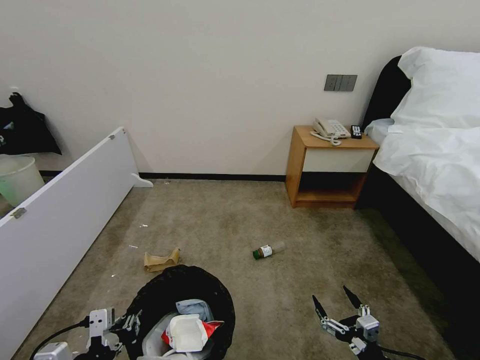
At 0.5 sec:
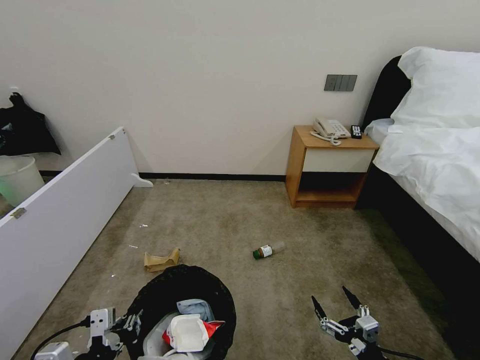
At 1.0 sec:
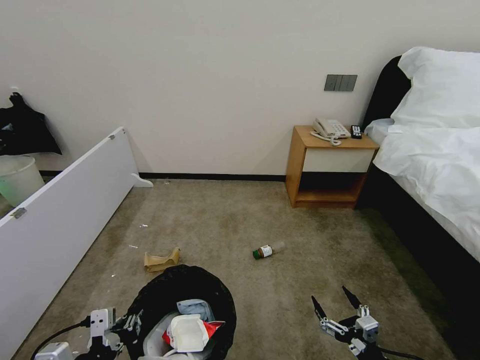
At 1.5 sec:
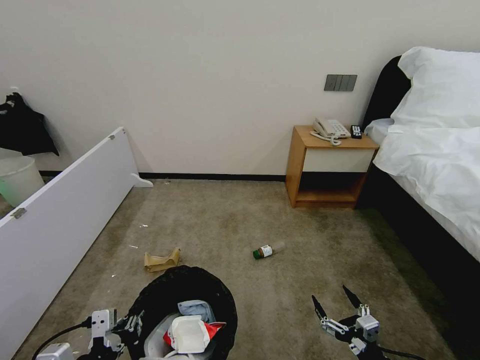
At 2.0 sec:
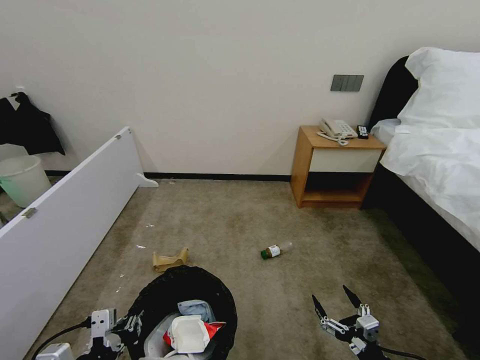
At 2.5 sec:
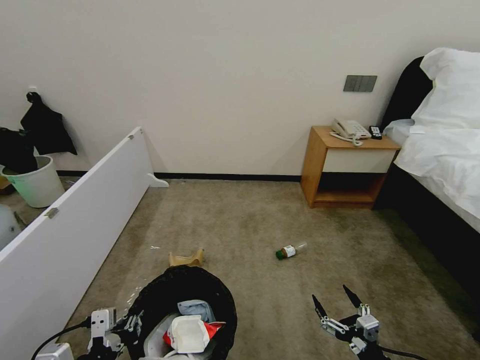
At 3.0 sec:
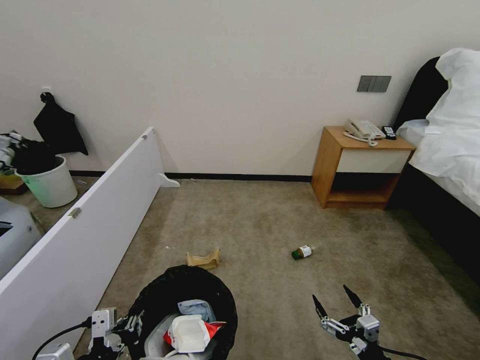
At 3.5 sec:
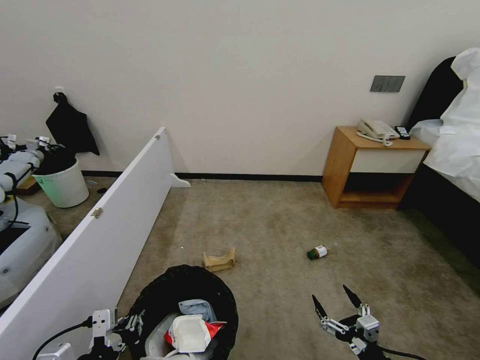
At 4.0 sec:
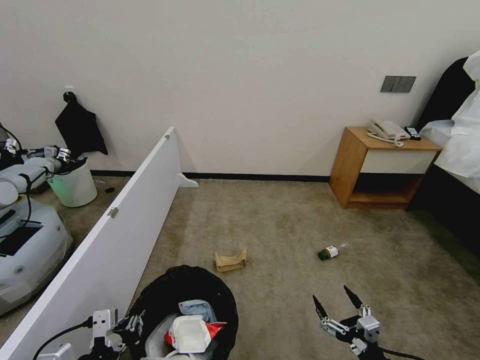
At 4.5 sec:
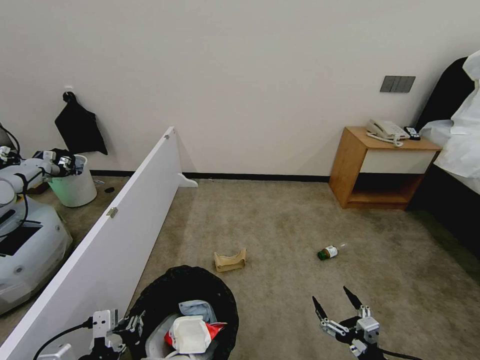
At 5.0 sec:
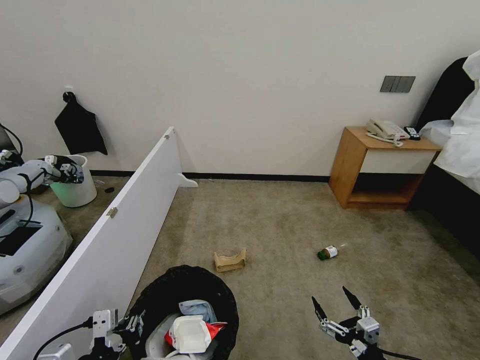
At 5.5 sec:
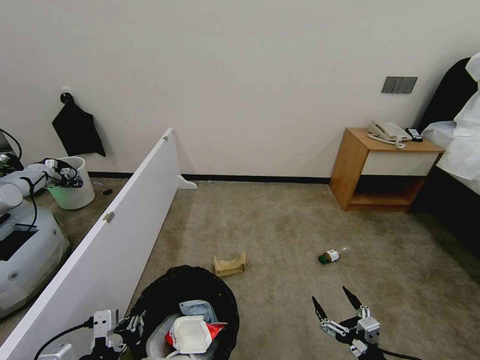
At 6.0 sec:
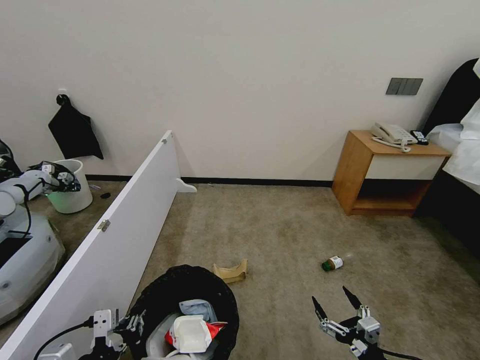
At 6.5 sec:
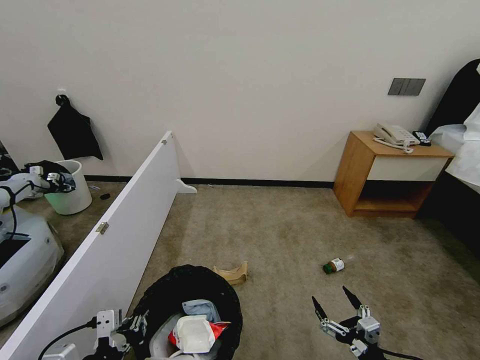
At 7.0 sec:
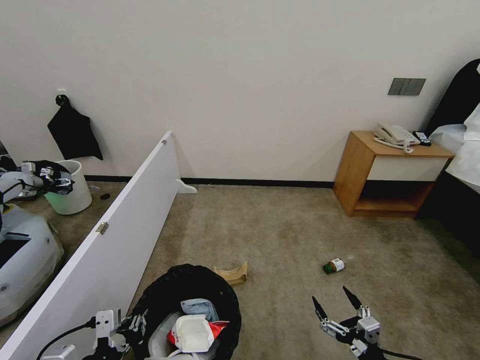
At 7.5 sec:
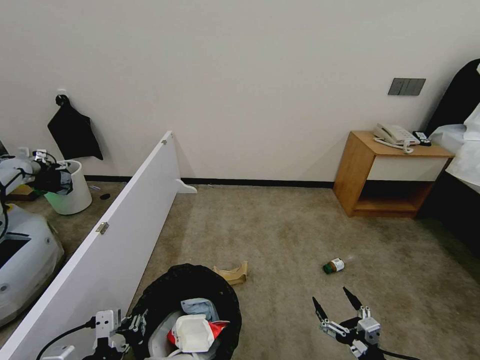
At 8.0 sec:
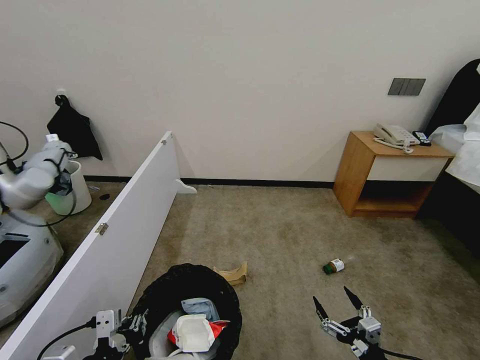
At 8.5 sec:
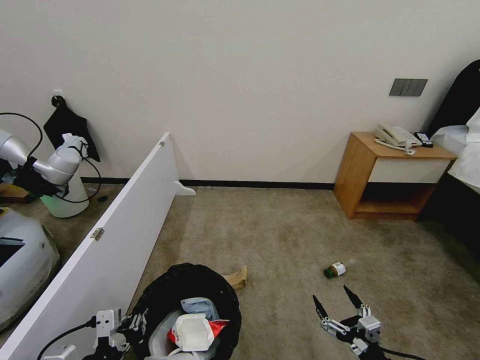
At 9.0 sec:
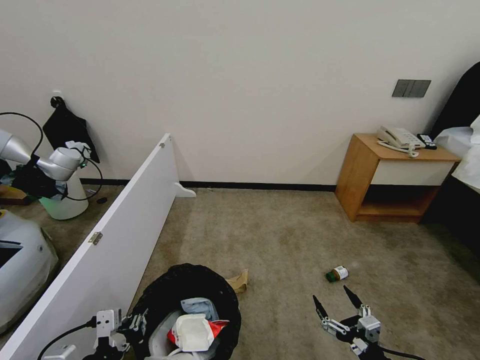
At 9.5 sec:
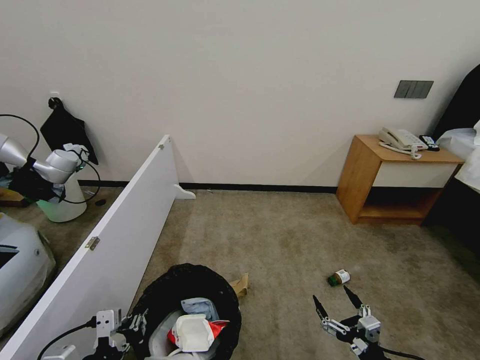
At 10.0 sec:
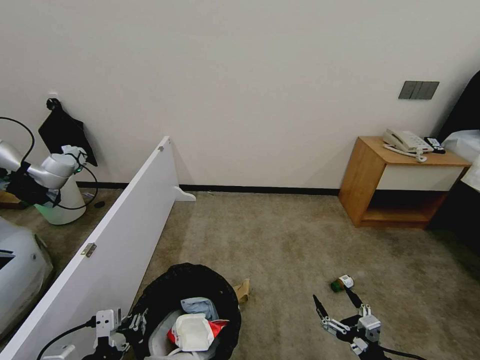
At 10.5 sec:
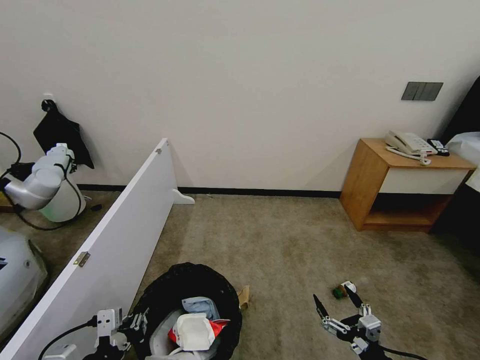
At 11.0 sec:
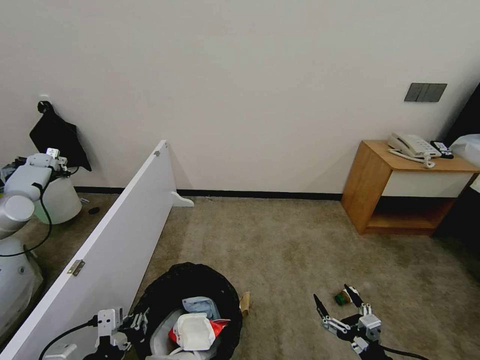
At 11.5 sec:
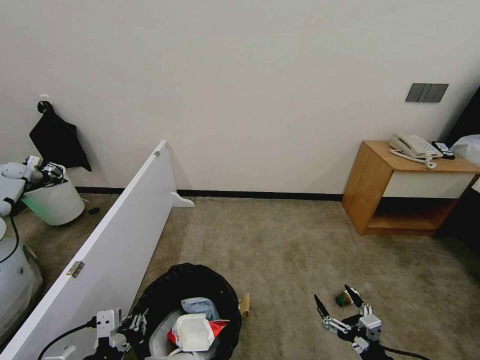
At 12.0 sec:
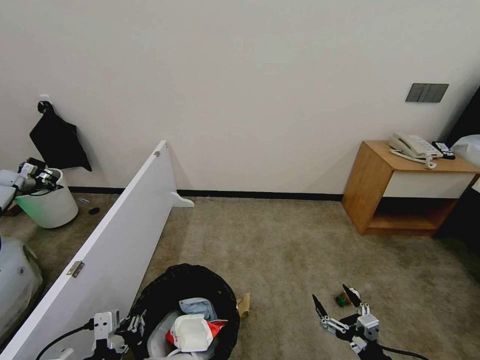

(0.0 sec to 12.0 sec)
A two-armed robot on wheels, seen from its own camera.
Task of the whole recording: Pick up the trash bin, then pick up the garbage from the floor and place it into the trash bin.
0.0 sec - 2.0 sec: Both grippers stay put.
4.0 sec - 12.0 sec: Both grippers stay about where they are.

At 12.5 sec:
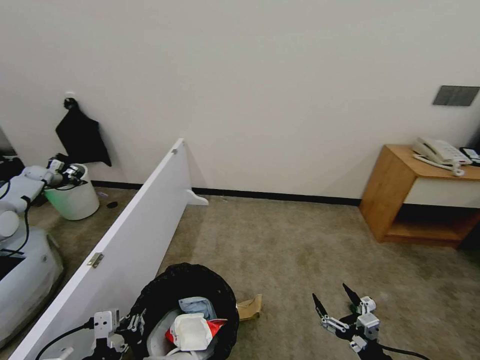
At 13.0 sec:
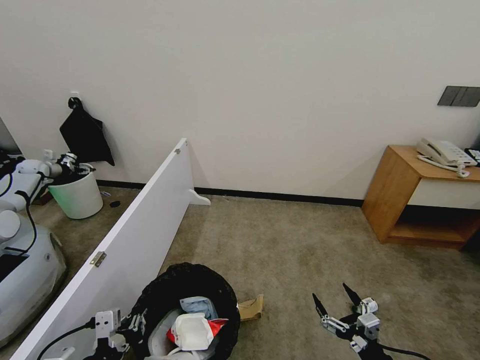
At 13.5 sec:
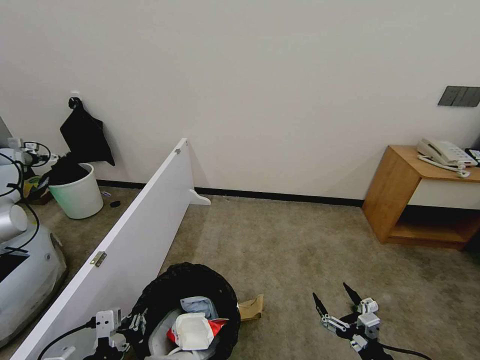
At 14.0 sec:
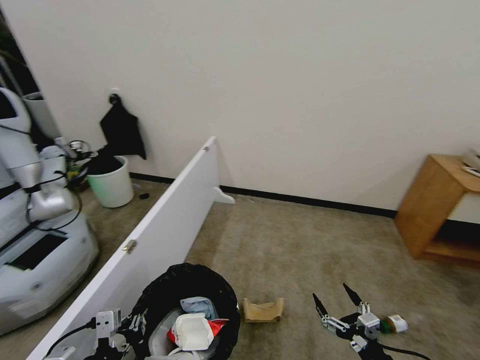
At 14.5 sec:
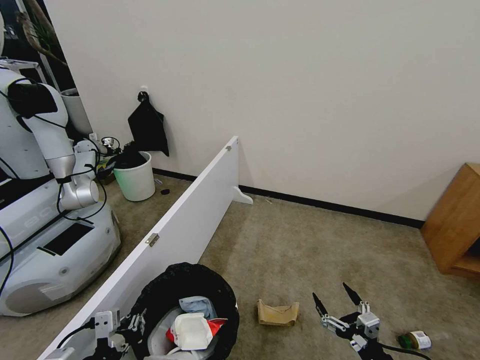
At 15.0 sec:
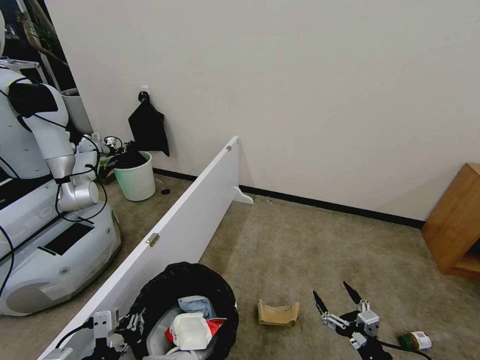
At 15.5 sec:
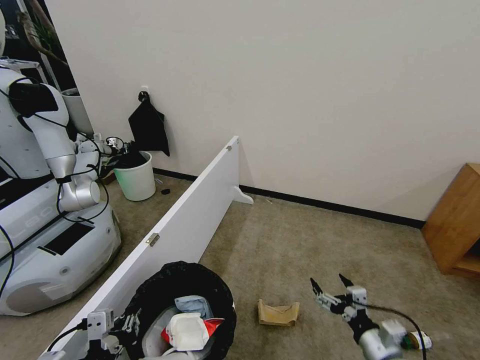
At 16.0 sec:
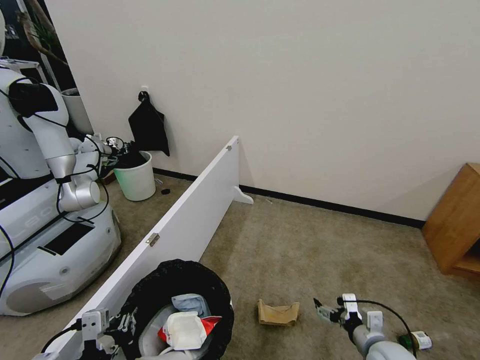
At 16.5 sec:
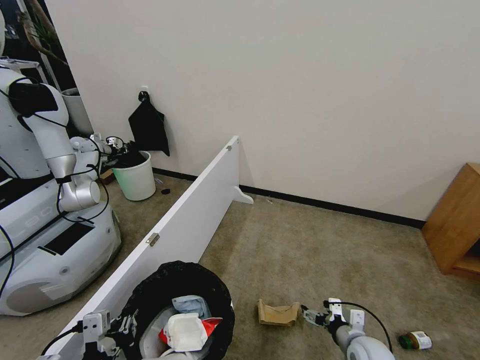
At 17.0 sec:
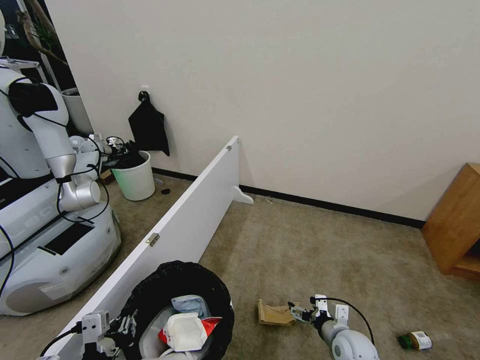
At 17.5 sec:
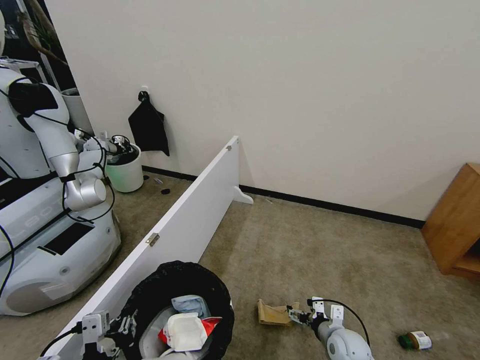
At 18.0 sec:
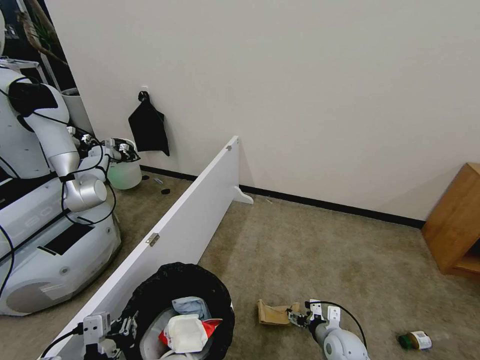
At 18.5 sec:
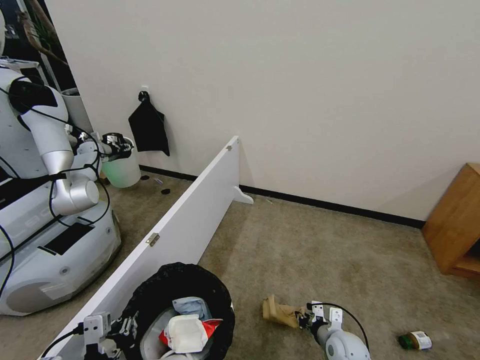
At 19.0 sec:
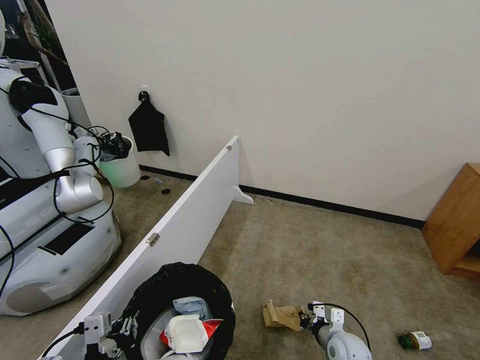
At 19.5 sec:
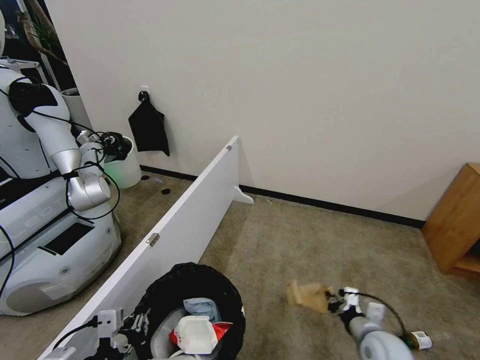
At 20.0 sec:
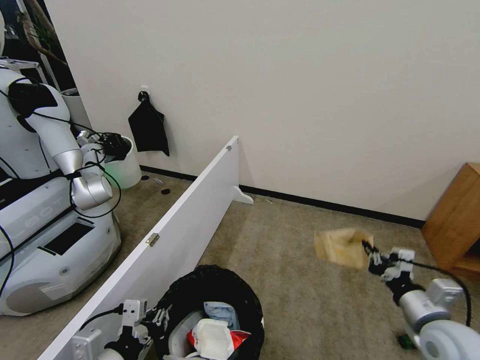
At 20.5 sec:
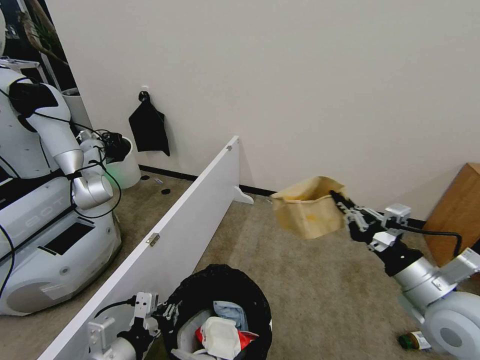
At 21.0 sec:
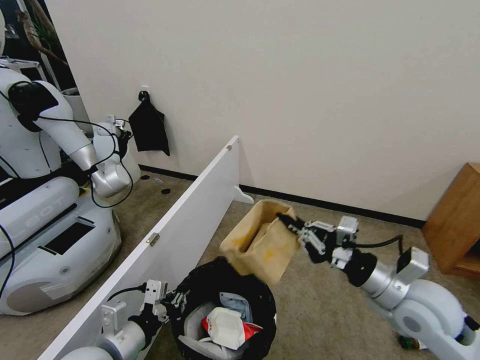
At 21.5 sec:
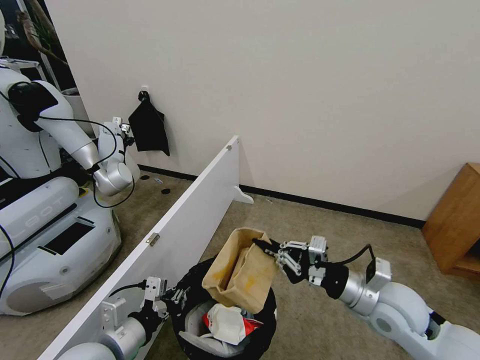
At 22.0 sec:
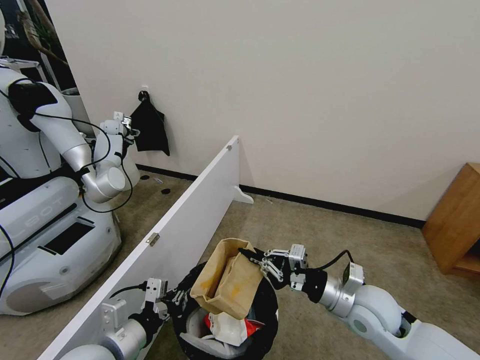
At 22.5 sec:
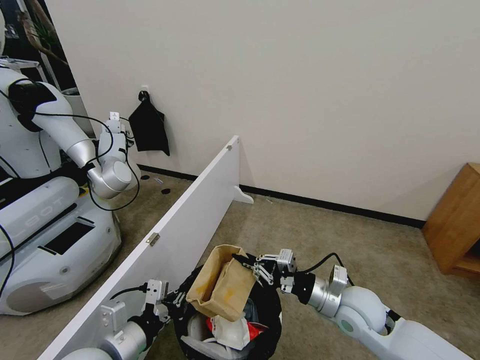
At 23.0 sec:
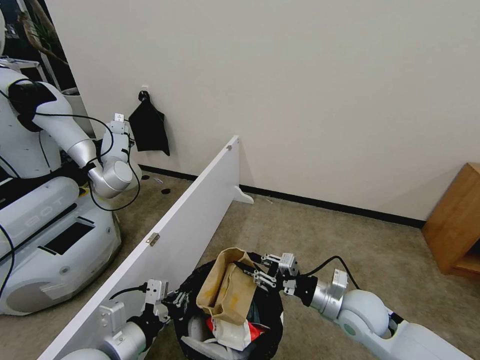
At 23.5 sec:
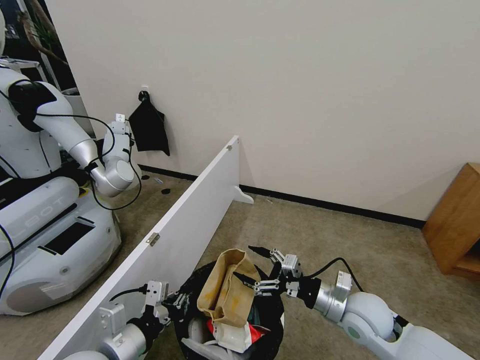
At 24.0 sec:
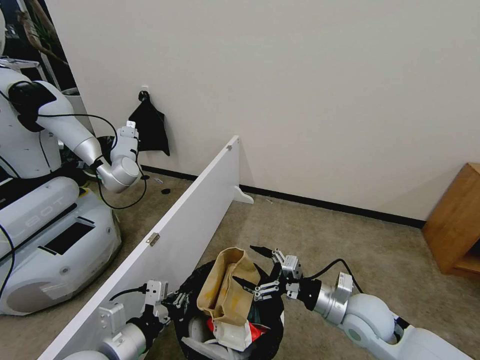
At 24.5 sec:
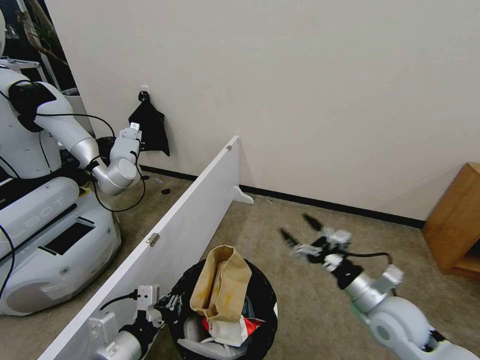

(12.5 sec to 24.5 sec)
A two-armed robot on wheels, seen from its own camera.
Task of the whole recording: Pick up the trash bin, then pick up the garbage from the floor and place it into the trash bin.
14.5 sec - 16.5 sec: The right gripper heads forward, covering some 15 cm.
16.5 sec - 18.5 sec: The right gripper ends up roughly 5 cm from where it was, and closes.
18.5 sec - 20.5 sec: The right gripper moves upward, approximately 30 cm, while the left gripper heads forward, covering approximately 5 cm.
20.5 sec - 22.5 sec: The right gripper travels downward, to the left and forward by about 15 cm.
22.5 sec - 24.5 sec: The right gripper travels to the right by roughly 5 cm, and opens its fingers.

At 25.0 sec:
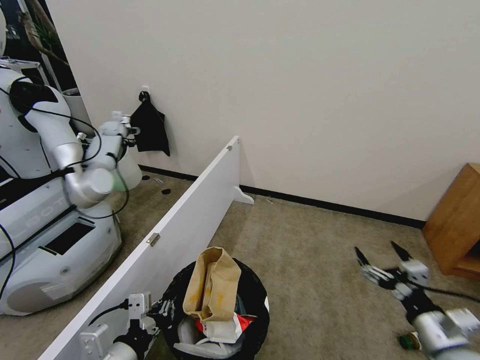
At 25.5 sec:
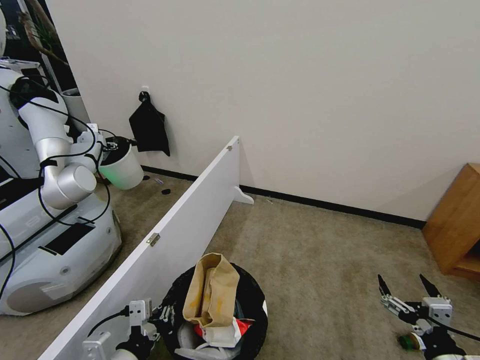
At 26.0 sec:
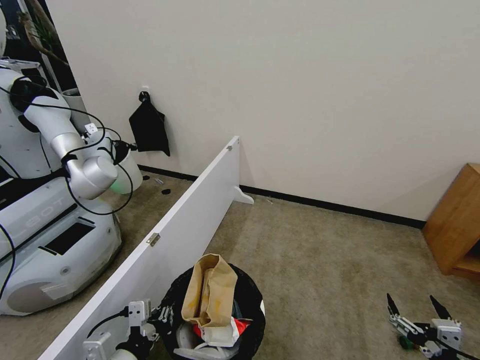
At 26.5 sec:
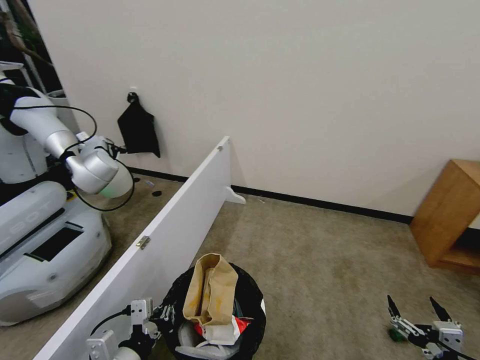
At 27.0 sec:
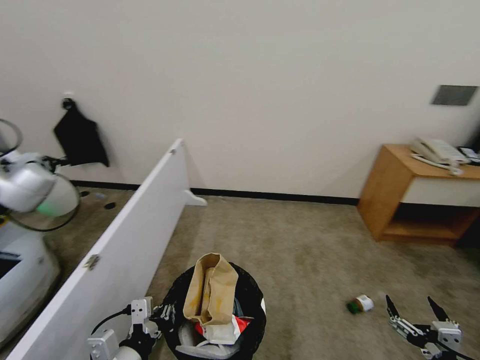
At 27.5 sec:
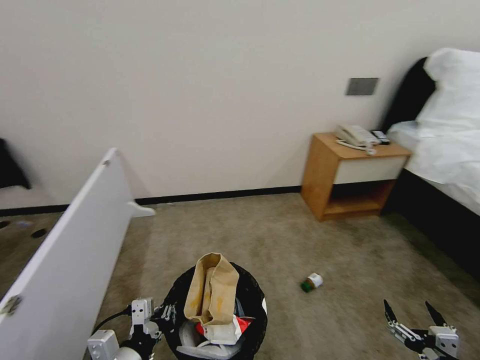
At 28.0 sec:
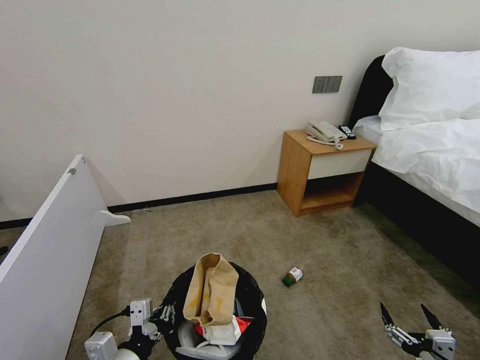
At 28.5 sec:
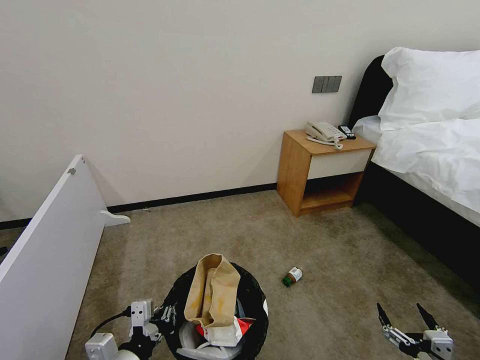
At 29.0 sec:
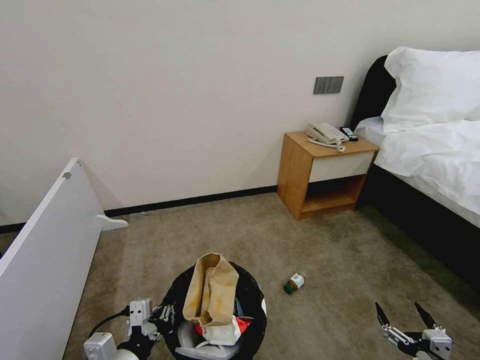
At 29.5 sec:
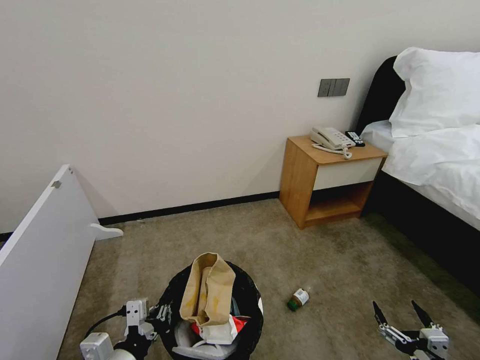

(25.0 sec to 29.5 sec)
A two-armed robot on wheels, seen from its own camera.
Task of the whole recording: Pick up the trash bin, then pick up the garbage from the floor and place it into the trash bin.
25.0 sec - 27.0 sec: The right gripper shifts about 10 cm backward and downward.
